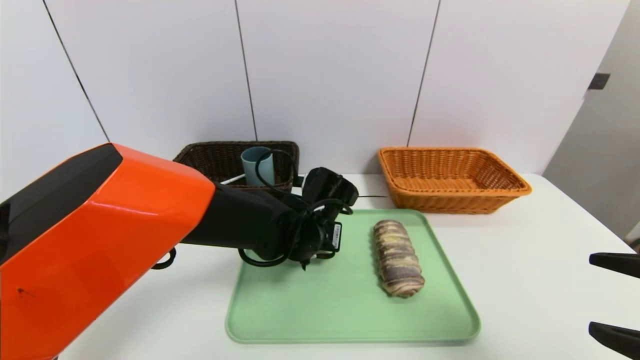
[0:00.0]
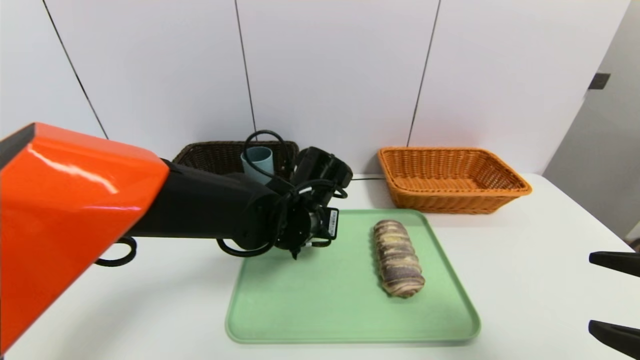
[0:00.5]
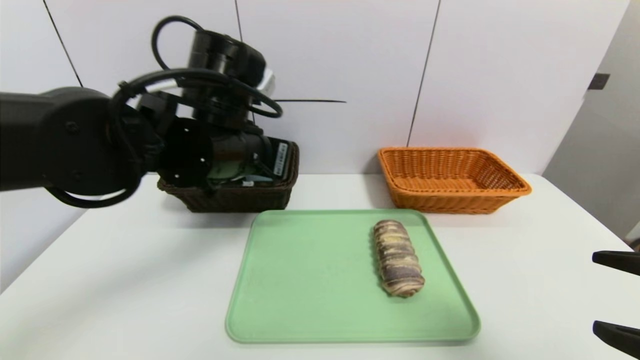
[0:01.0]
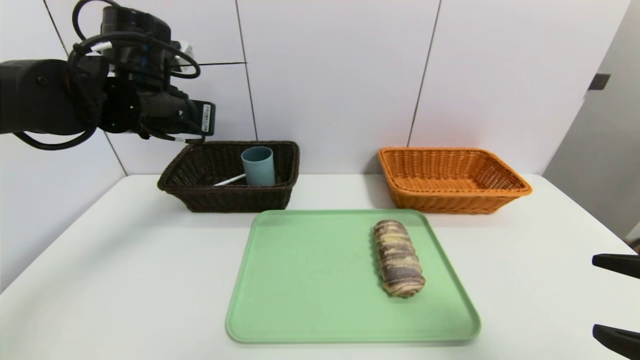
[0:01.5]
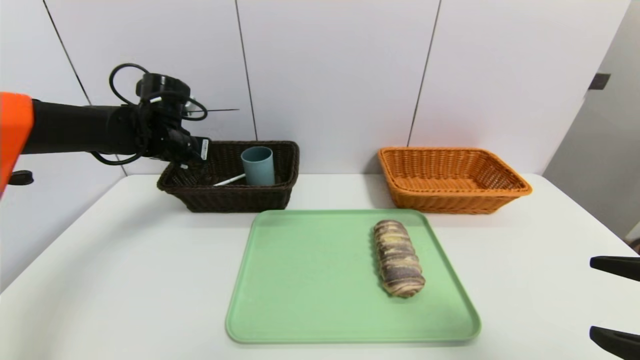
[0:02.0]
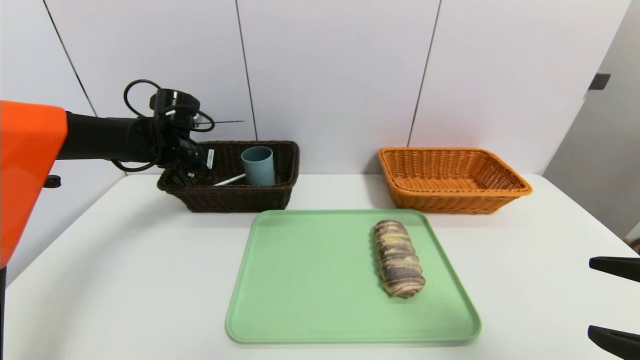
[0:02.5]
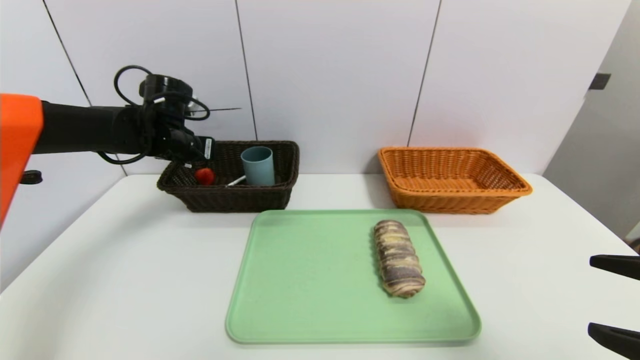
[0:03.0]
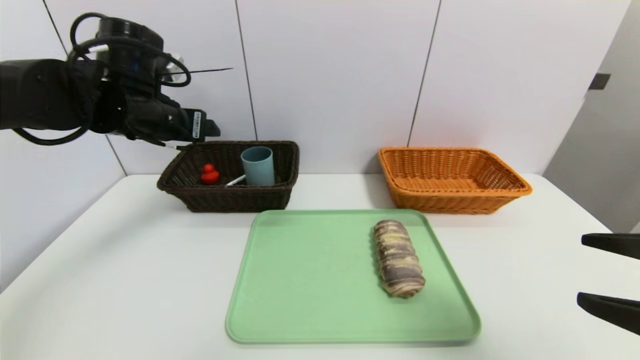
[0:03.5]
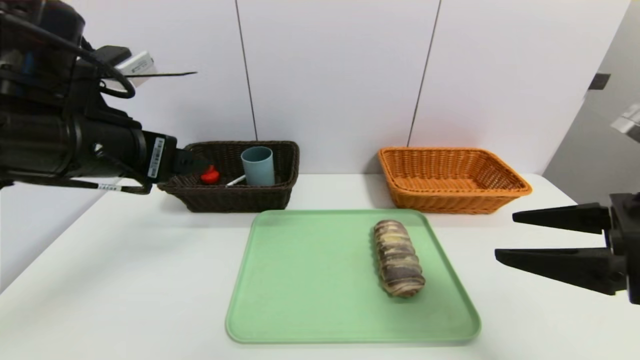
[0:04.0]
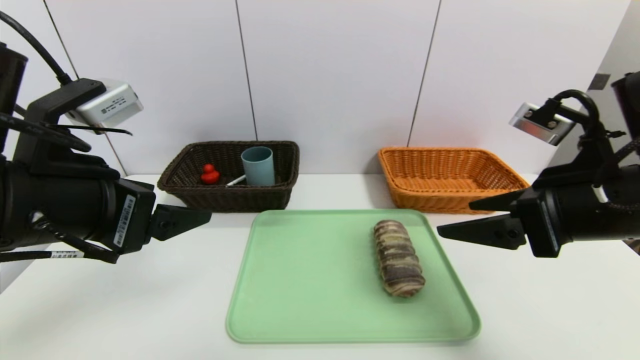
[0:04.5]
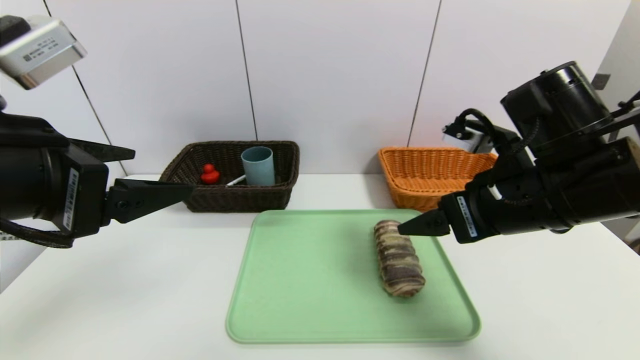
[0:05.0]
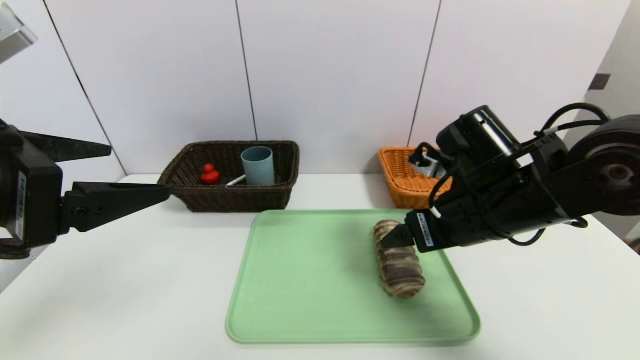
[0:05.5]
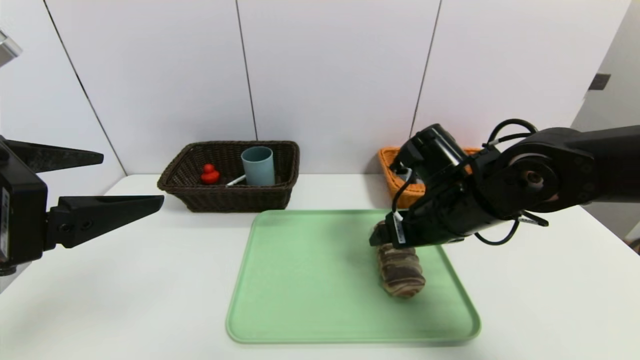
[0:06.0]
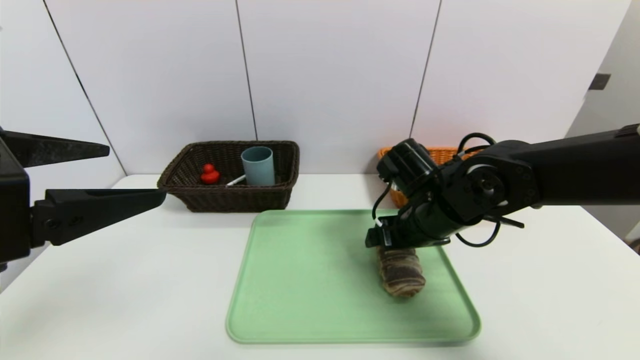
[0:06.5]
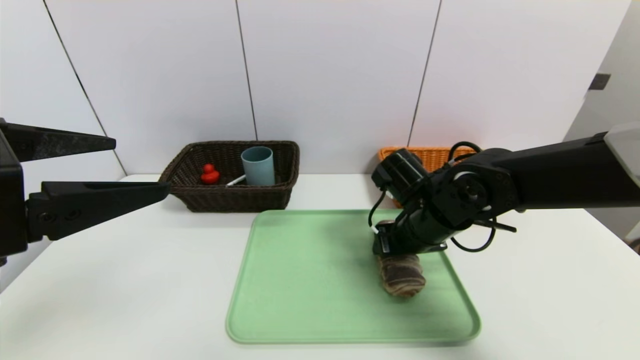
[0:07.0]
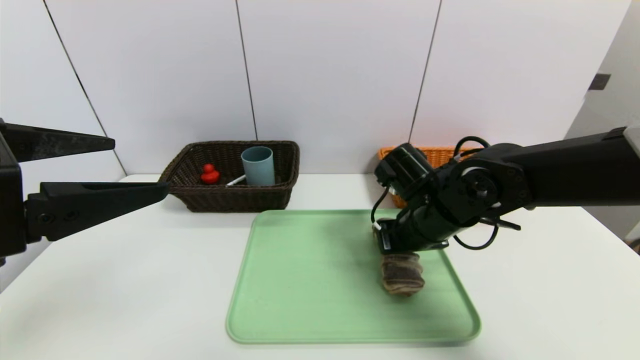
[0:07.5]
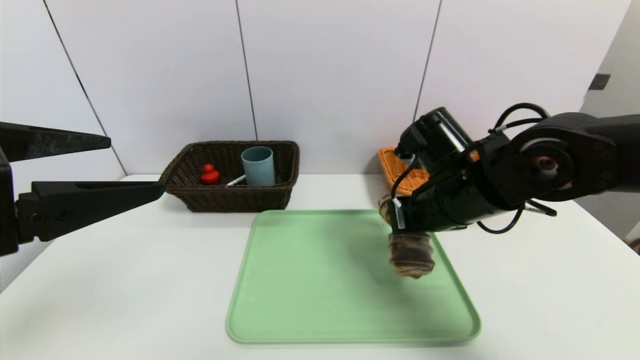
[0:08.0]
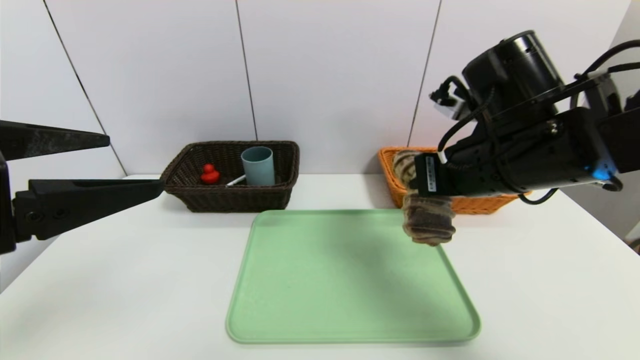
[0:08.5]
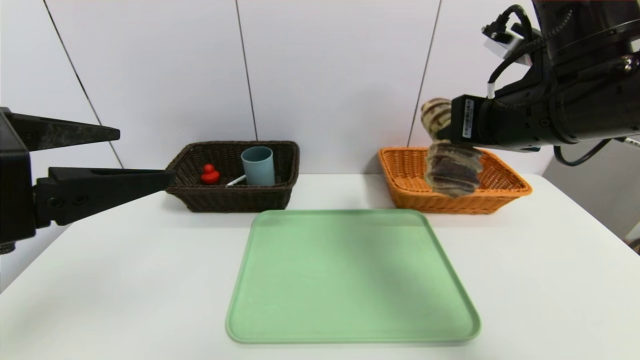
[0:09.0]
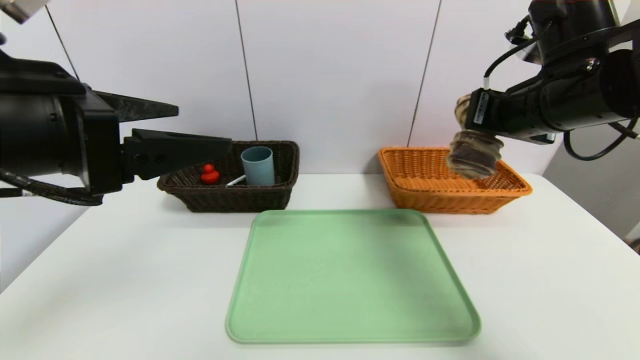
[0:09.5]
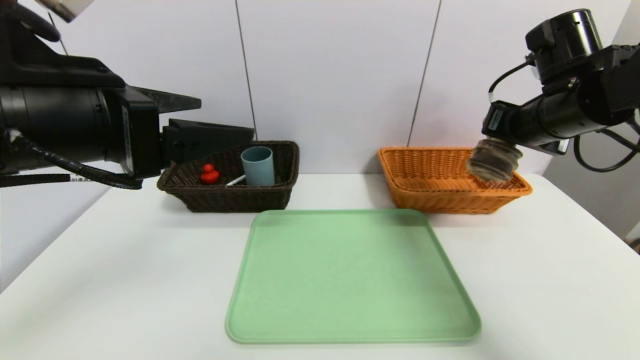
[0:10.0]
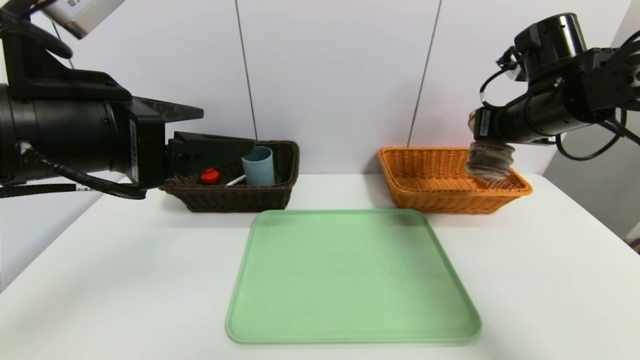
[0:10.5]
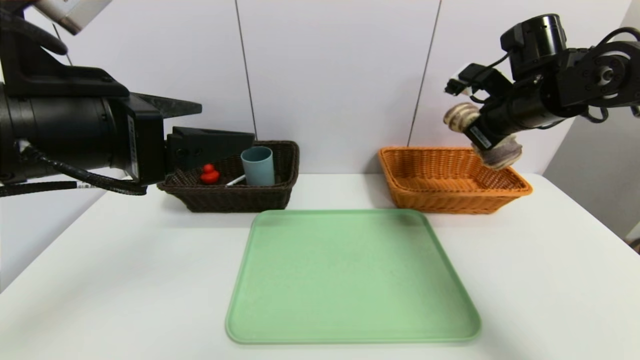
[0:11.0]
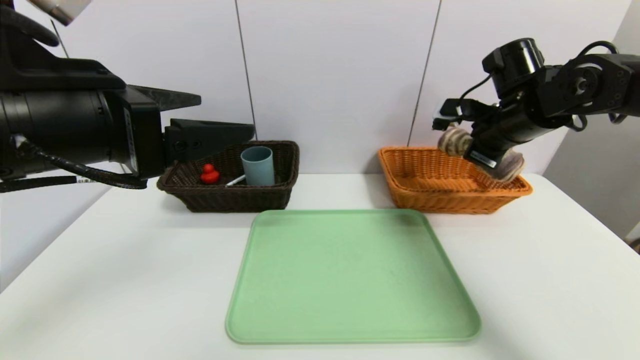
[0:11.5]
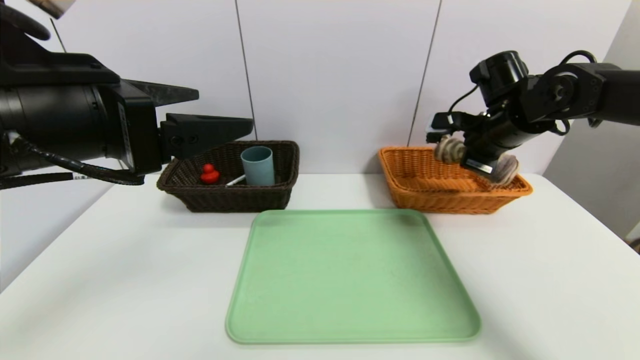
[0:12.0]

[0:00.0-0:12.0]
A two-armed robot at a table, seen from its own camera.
Task of the whole recording: place the food in the right basket with the right gripper, and place the non food items in the left basket with the left gripper.
Step, 0:00.0 to 0:02.5: Grasp the red duck and put it in the left basket.
0:00.0 to 0:02.0: The left gripper travels to the left, forward and upward by approximately 30 cm.
0:02.0 to 0:04.0: The left gripper moves backward and upward, approximately 20 cm, and opens its fingers. The right gripper goes some 5 cm forward.
0:04.0 to 0:06.0: The right gripper goes some 20 cm forward, to the left and downward; the left gripper goes some 10 cm backward.
0:06.0 to 0:08.0: The right gripper closes its fingers.
0:08.0 to 0:10.0: The left gripper travels forward by roughly 5 cm. Meanwhile the right gripper goes about 15 cm to the right and upward.
0:10.0 to 0:12.0: The right gripper travels forward by about 5 cm.

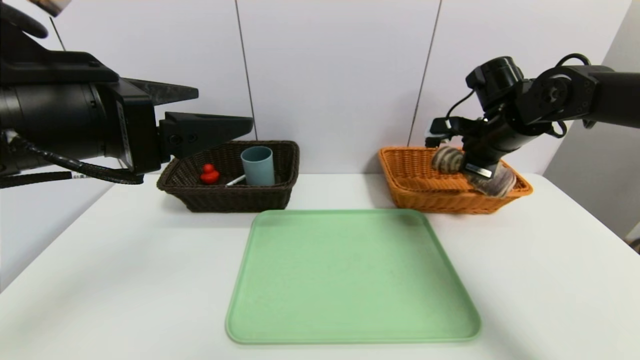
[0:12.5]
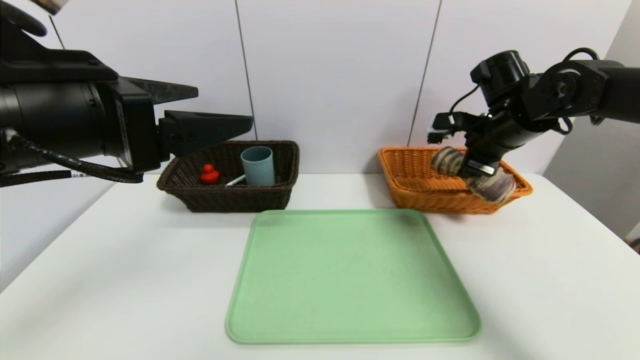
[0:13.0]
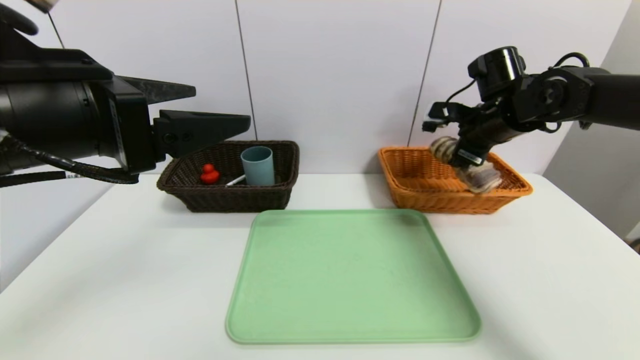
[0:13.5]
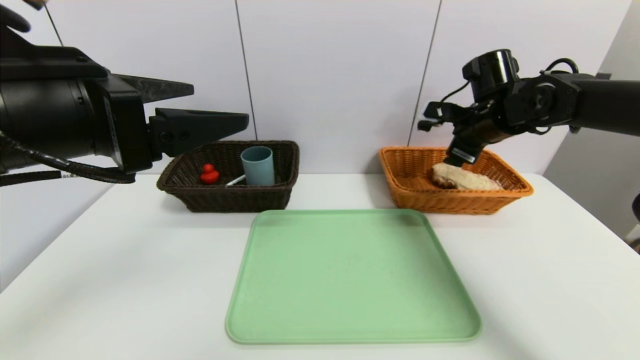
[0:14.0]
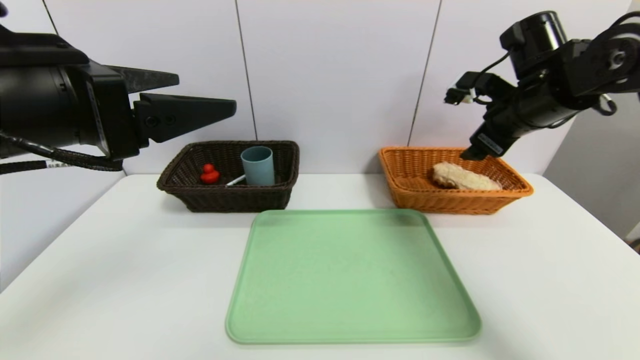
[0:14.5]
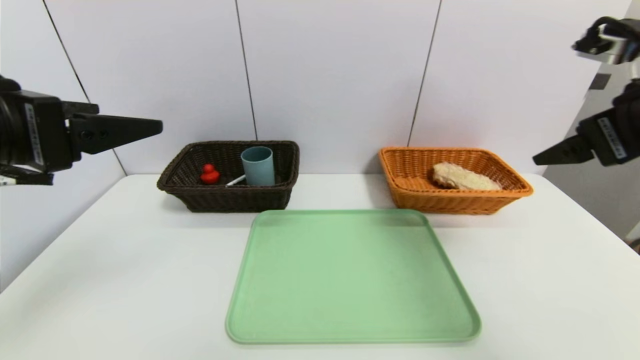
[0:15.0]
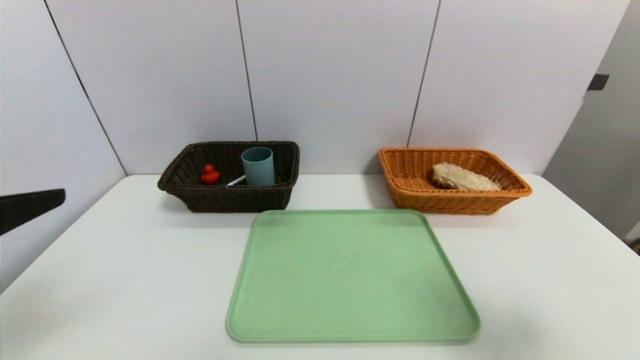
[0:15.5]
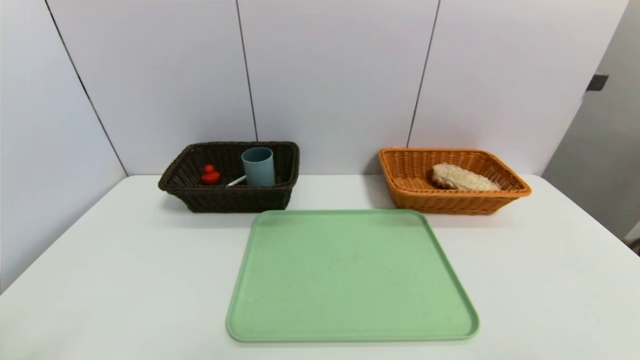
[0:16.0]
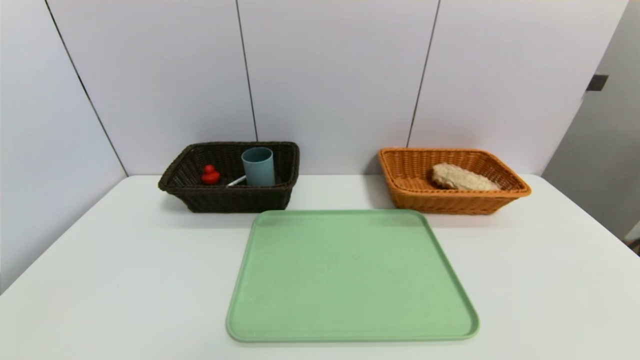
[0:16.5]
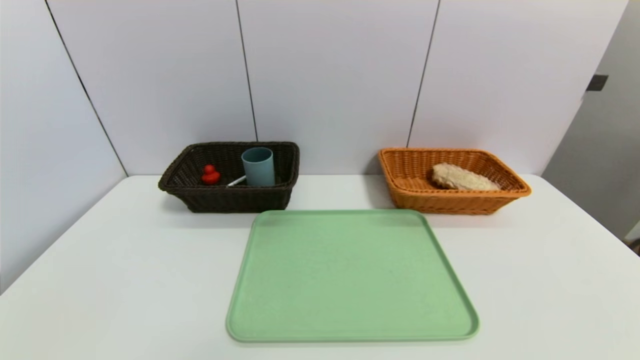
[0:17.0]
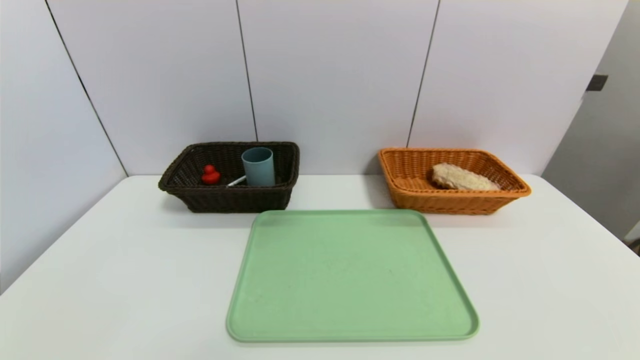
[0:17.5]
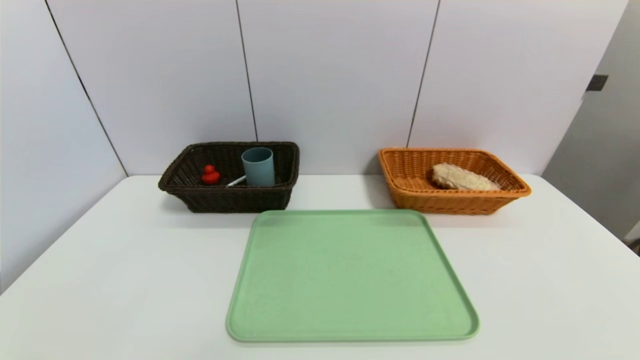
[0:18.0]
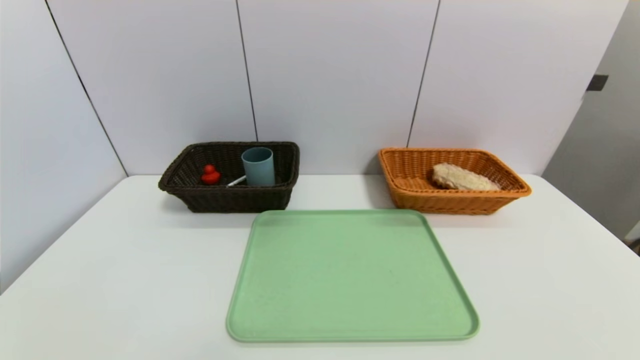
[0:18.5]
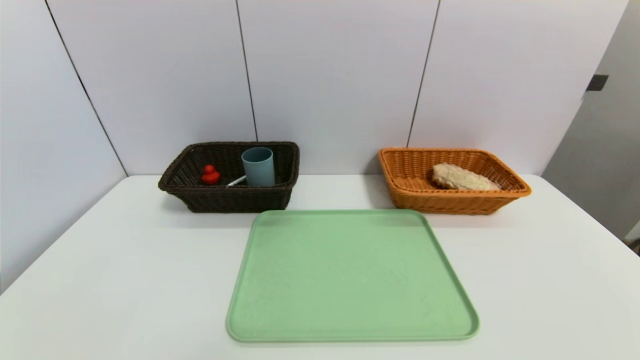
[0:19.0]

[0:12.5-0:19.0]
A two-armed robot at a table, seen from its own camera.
Task of the whole recording: place the food in the right basket with the right gripper, and place the non food items in the left basket with the left gripper.
0:12.5 to 0:14.5: The right gripper goes roughly 5 cm upward, and opens its fingers.
0:14.5 to 0:17.0: The left gripper travels backward, downward and to the left by approximately 30 cm; the right gripper heads backward, covering some 40 cm.

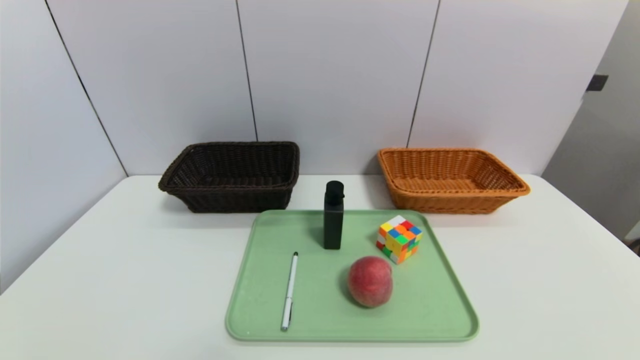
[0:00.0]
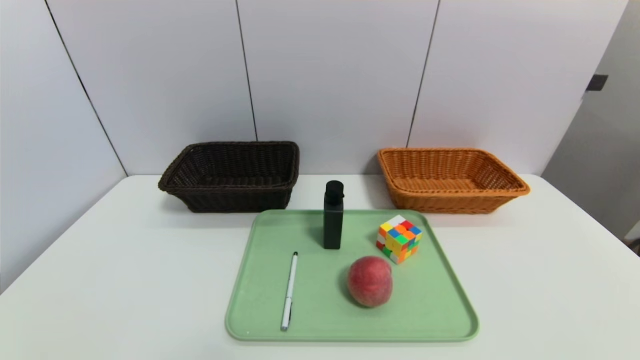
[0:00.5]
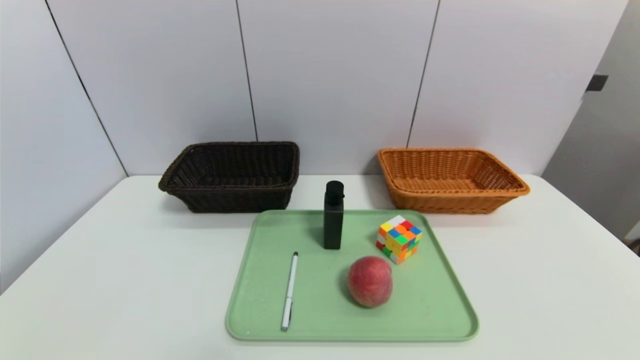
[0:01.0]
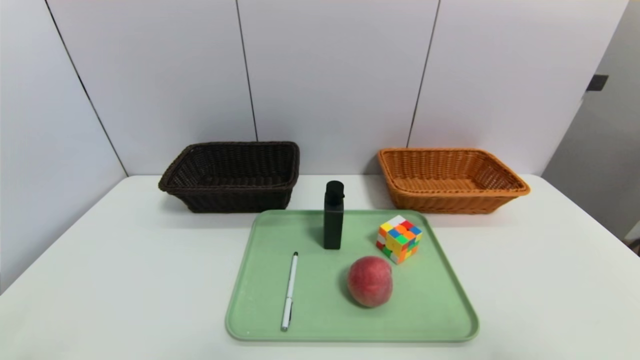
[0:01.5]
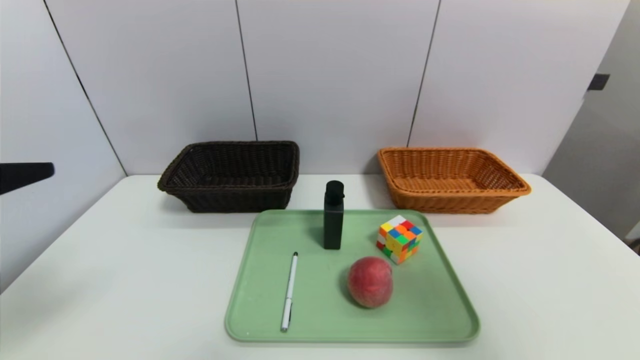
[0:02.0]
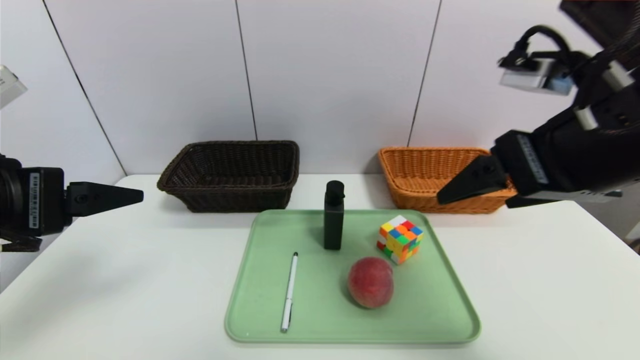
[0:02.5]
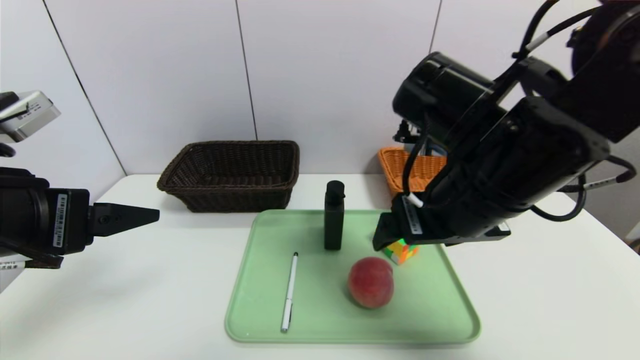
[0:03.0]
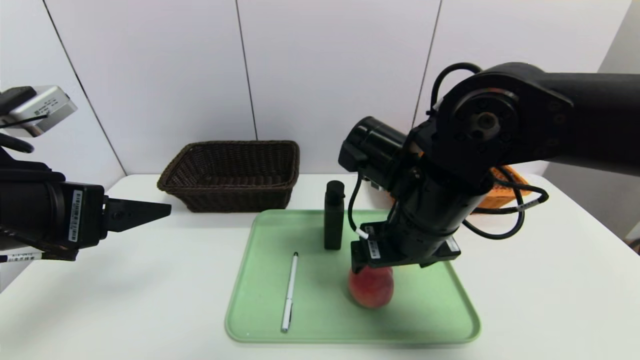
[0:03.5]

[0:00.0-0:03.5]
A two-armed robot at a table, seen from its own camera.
Task of the whole recording: place the food in the right basket with the right gripper, and place the non food items in the left basket with the left gripper.
0:00.0 to 0:02.0: The left gripper is displaced upward and forward by some 25 cm, while the right gripper moves upward, roughly 30 cm.
0:02.0 to 0:03.5: The right gripper is displaced to the left, downward and forward by approximately 30 cm, while the left gripper goes approximately 5 cm forward.
